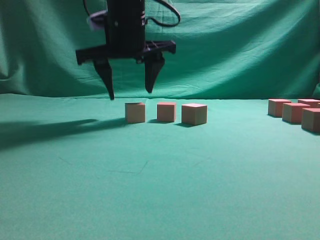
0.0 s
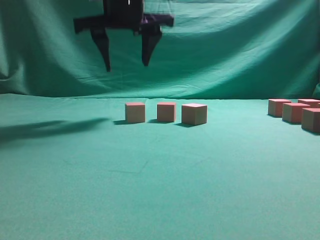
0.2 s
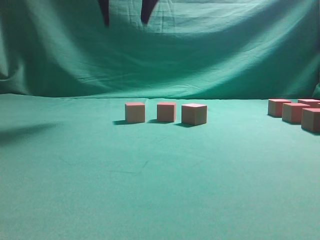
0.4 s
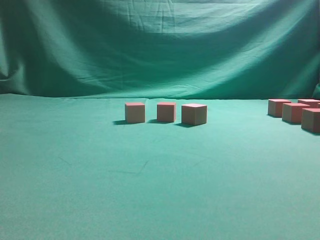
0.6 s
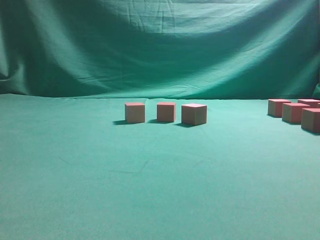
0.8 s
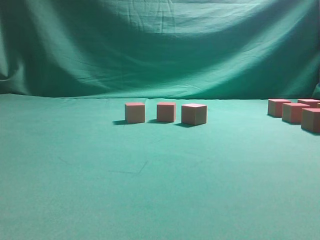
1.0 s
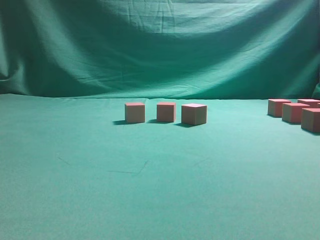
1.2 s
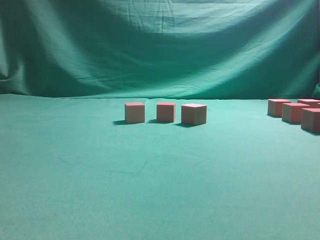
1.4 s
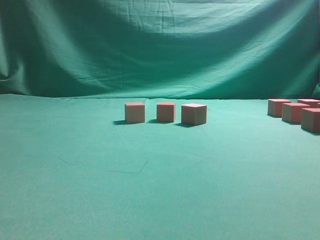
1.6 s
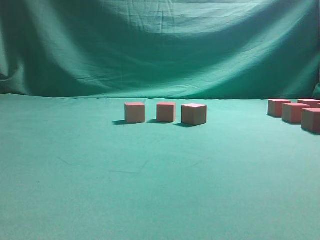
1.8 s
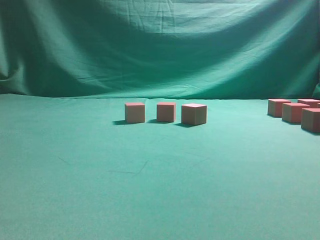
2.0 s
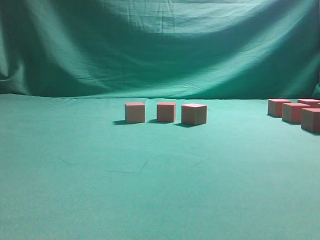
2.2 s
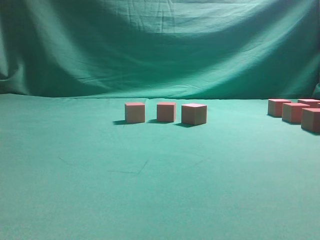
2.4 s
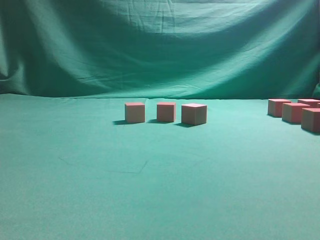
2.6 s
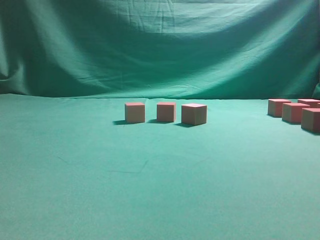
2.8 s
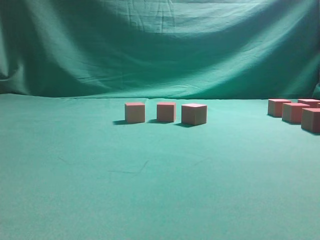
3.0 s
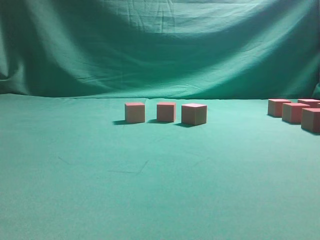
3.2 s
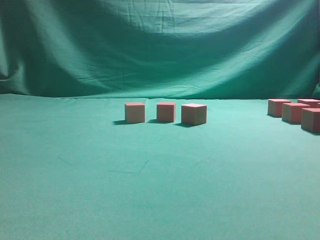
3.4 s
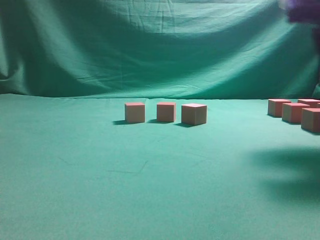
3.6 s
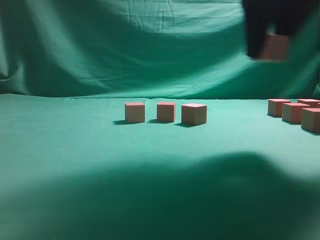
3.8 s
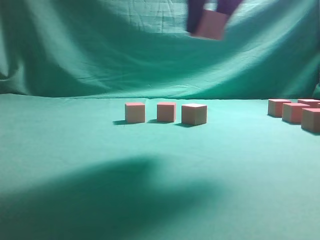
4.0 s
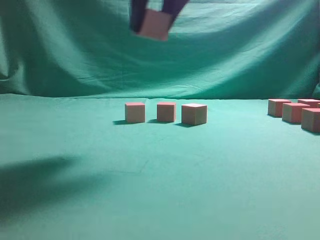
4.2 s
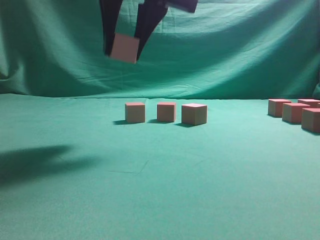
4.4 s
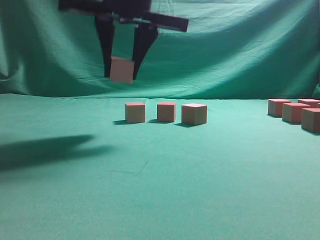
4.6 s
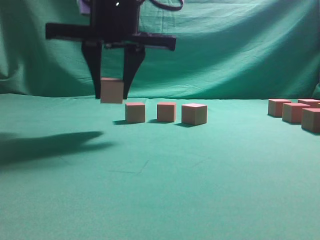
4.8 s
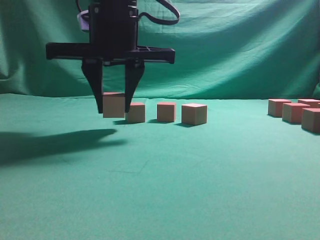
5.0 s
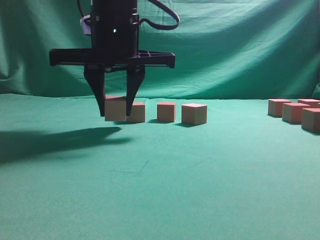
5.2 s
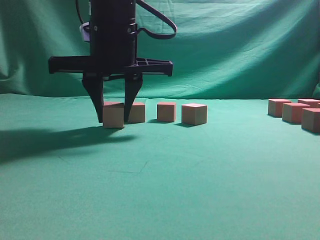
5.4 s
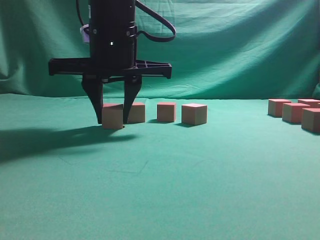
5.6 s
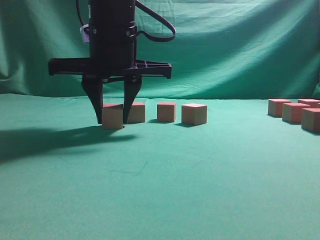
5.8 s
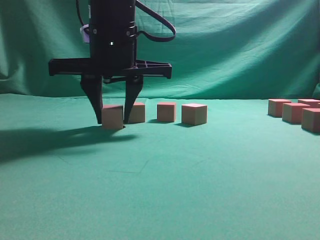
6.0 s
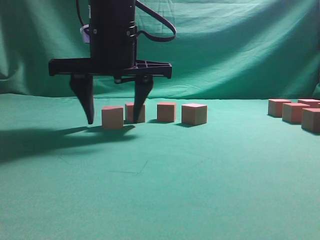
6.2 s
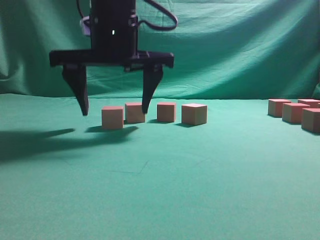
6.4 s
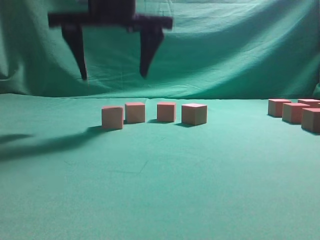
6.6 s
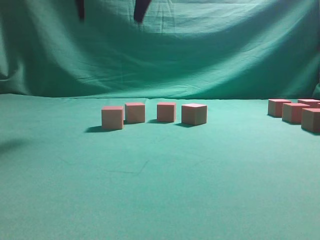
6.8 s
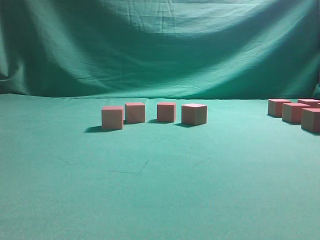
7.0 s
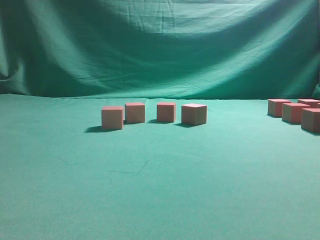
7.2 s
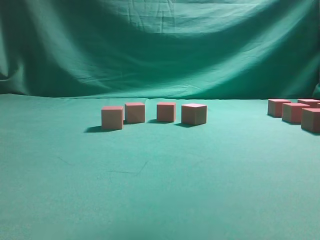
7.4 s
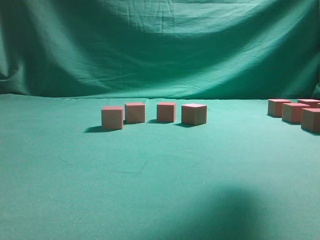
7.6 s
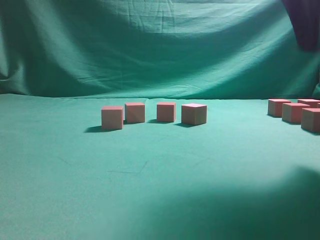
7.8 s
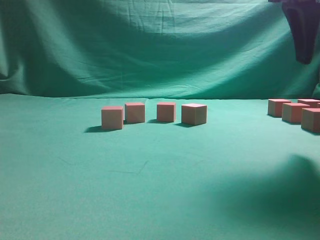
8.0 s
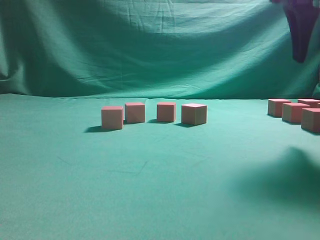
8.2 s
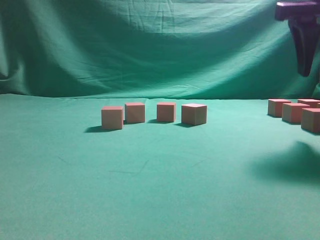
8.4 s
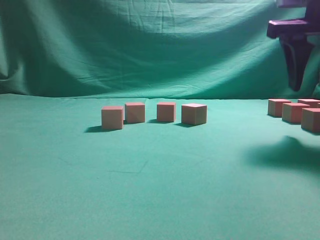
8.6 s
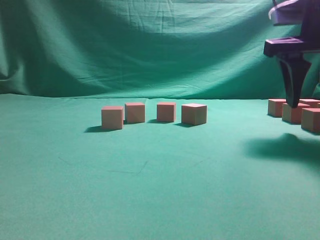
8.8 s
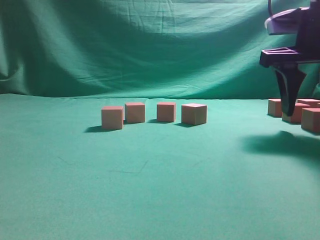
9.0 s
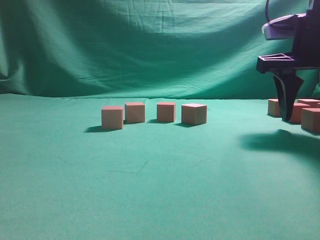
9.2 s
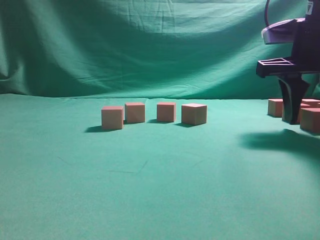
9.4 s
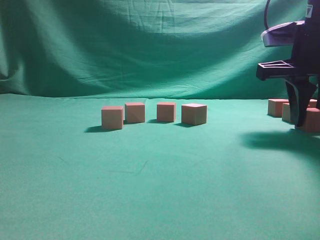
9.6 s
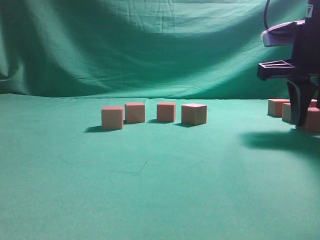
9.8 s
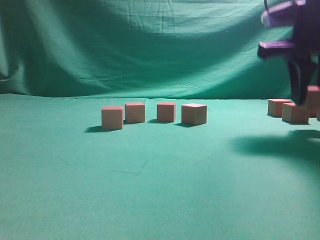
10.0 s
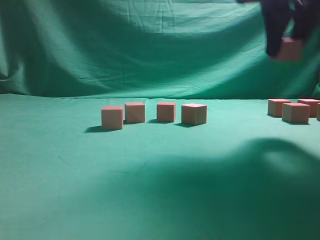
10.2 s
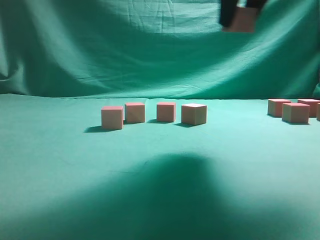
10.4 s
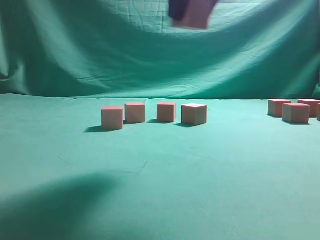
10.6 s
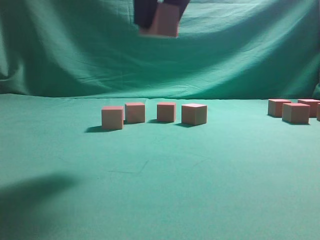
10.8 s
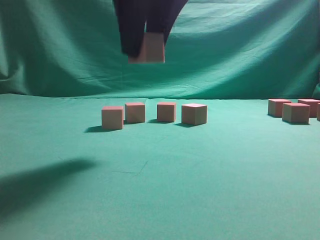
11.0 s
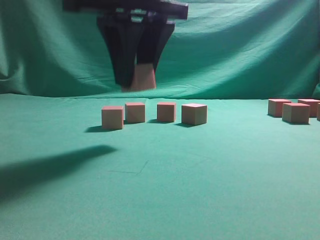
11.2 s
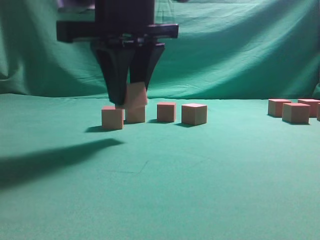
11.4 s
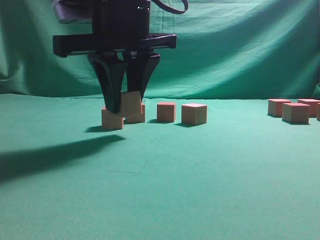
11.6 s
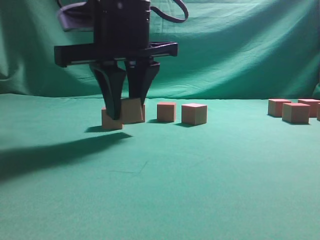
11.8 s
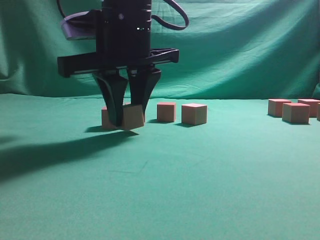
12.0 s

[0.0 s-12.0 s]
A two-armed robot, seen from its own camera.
Task of the whole recording: pick up the multiple cubes in two columns one by one and place them in another position on the table.
Step, 0.4 to 3.4 s: Pick up the block on the table.
Step, 3.6 to 6.6 s: Place the block at the correct position to assemble the letter S.
Step, 6.8 to 9.8 s: Pick up the block on the table.
0.0 to 1.6 s: The right gripper shifts some 40 cm to the right, backward and upward.
3.0 to 4.4 s: The right gripper moves to the left, roughly 30 cm.
4.4 to 6.0 s: The right gripper travels downward by about 10 cm.
6.0 to 7.6 s: The right gripper travels to the right and upward by roughly 25 cm, and opens up.
7.6 to 9.0 s: The right gripper heads downward, forward and to the right, covering some 15 cm.
9.0 to 10.4 s: The right gripper travels upward and to the left by approximately 15 cm, and closes its fingers.
10.4 to 12.0 s: The right gripper shifts some 20 cm to the left and downward.

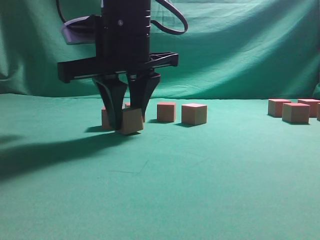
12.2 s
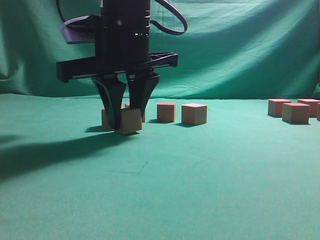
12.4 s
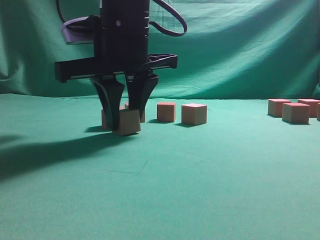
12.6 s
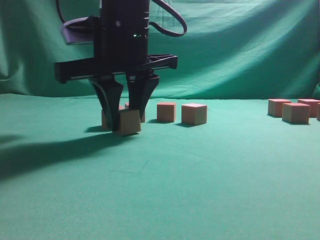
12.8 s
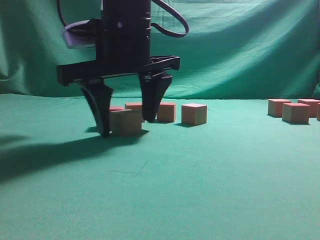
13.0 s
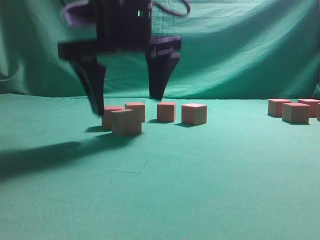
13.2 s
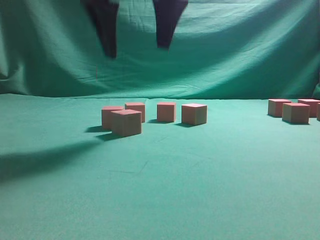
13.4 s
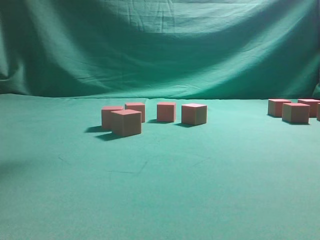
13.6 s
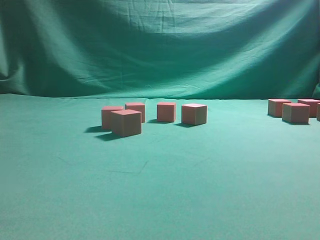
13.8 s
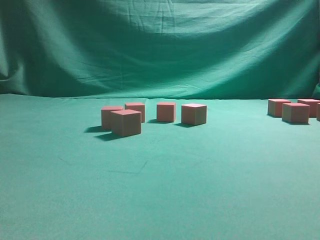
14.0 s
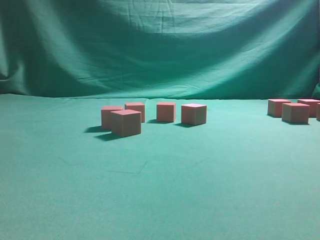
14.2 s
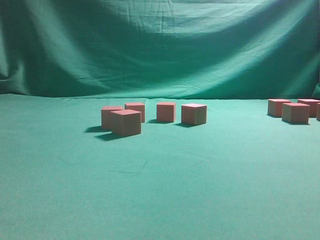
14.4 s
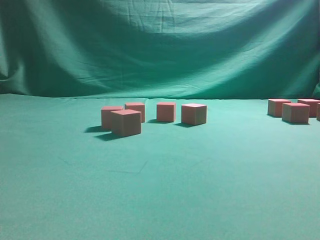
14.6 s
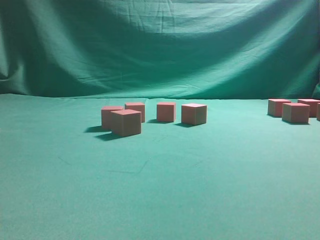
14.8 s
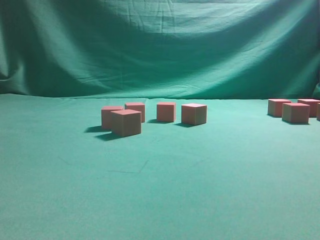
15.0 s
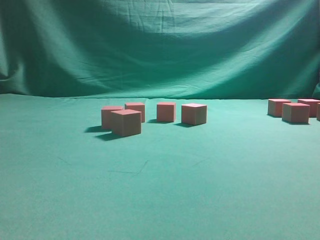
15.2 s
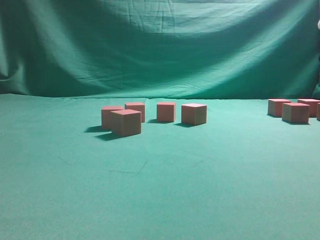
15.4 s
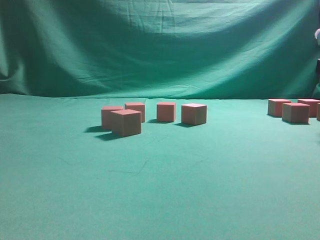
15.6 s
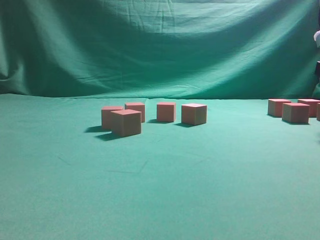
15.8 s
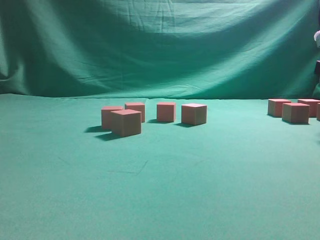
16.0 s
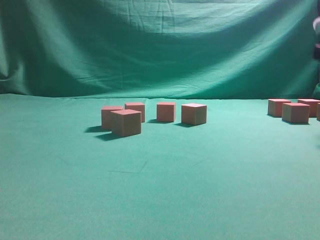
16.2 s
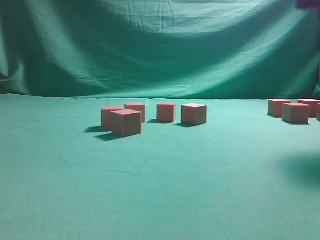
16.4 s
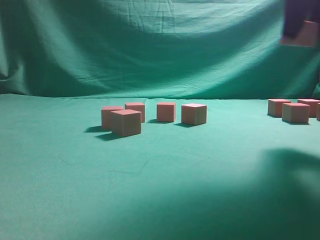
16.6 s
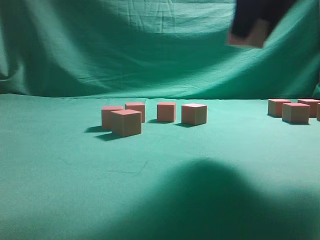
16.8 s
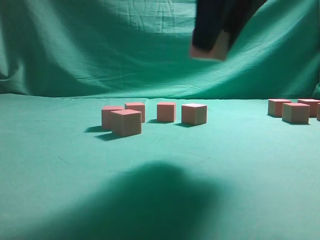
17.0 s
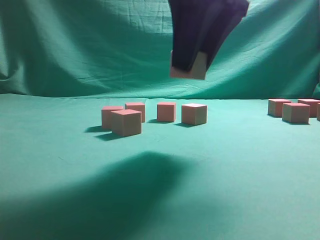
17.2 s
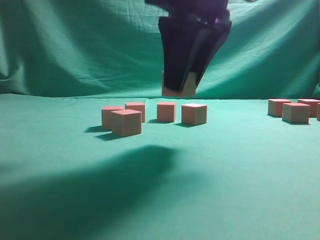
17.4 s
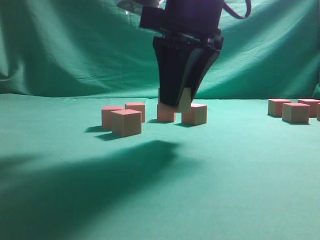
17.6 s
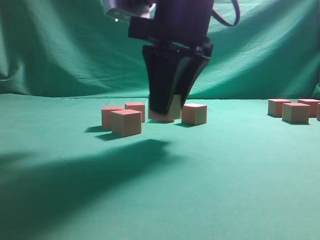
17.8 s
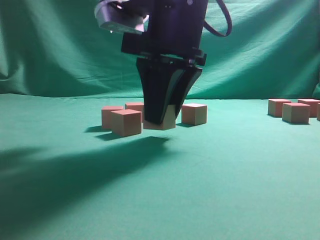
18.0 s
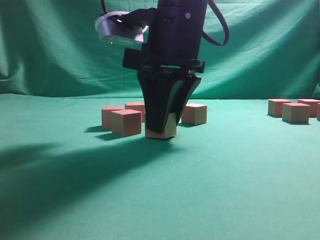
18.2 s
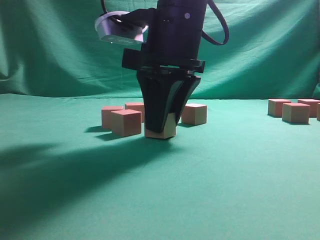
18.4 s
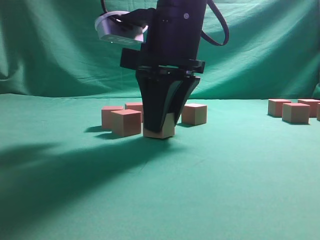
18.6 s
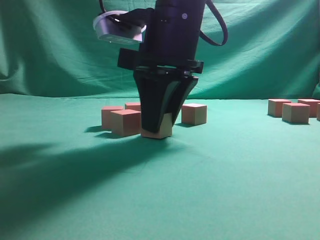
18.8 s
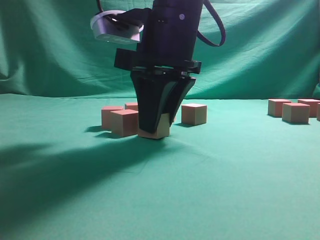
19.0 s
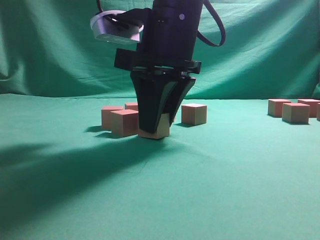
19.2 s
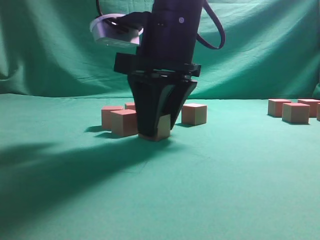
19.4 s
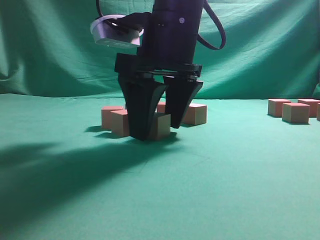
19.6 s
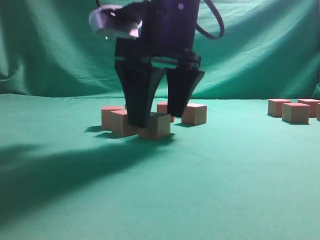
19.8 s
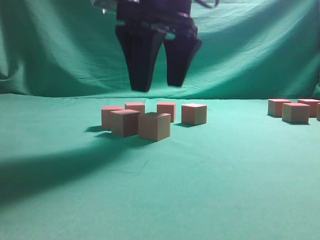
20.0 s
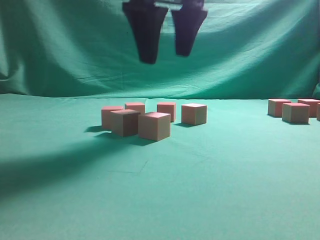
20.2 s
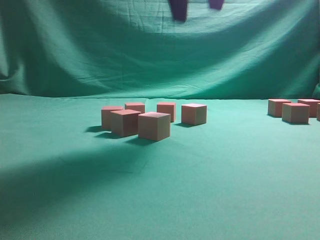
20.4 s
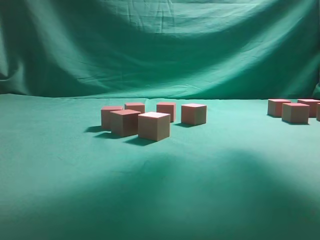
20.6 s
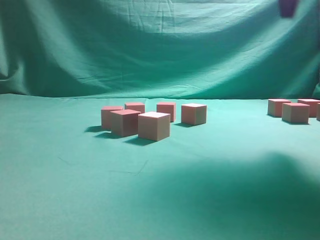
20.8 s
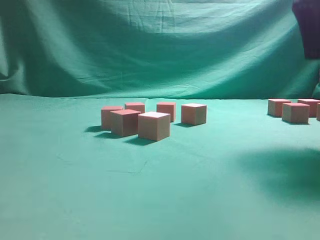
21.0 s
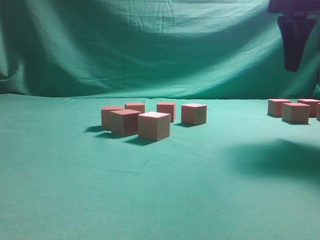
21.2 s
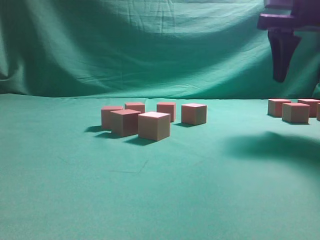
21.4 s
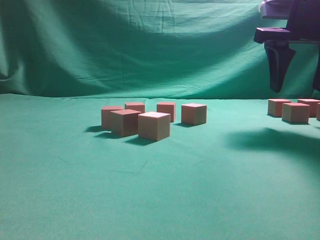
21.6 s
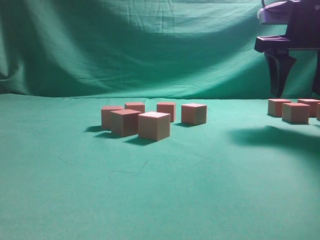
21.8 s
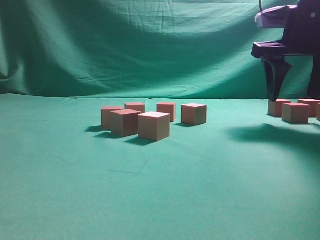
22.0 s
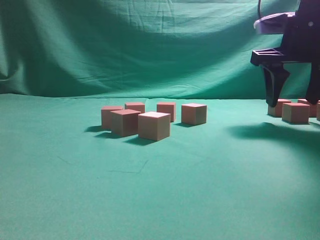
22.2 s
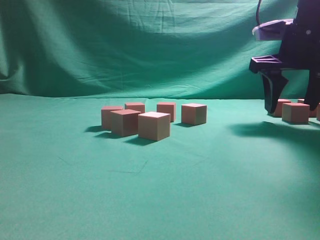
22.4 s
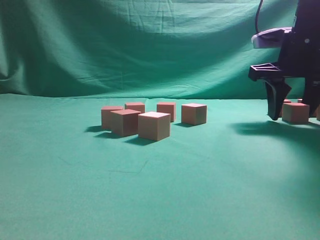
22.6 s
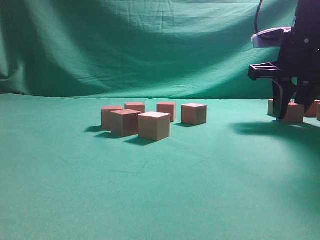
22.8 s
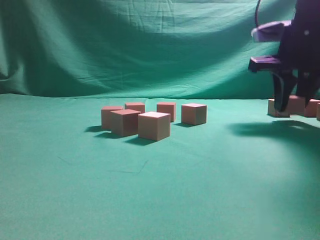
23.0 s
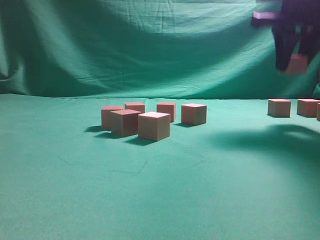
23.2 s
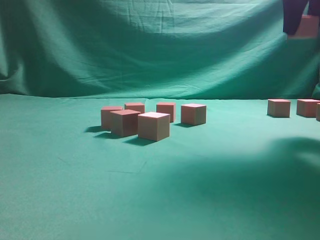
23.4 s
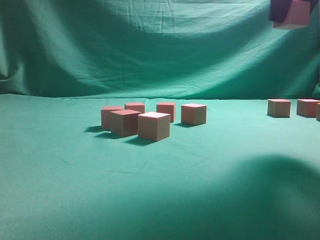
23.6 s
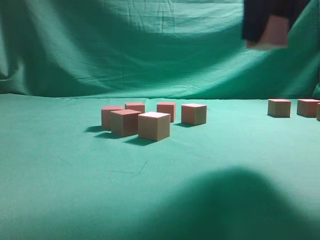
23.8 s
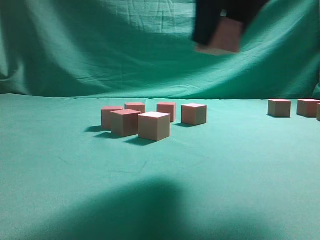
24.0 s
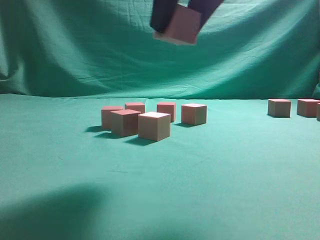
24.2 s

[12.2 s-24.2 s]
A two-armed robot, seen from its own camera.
Task of the whole recording: pick up the multiple cubes in two columns one by one and place them in another position on the table.
Step, 13.4 to 16.0 s: Pick up the block on the table.
Step, 16.2 to 20.2 s: Place the block at the correct position to assemble the letter S.
Step, 20.4 to 23.4 s: Pick up the block on the table.
12.2 to 13.8 s: The right gripper is displaced upward and to the right by some 25 cm, and opens its fingers.
15.2 to 16.6 s: The right gripper heads to the left and upward, covering approximately 10 cm, and closes its fingers.
16.6 to 18.2 s: The right gripper travels to the left and downward by roughly 20 cm.
18.2 to 19.8 s: The right gripper opens up.
19.8 to 21.2 s: The right gripper moves to the right, roughly 20 cm.
21.2 to 22.6 s: The right gripper heads downward and forward, covering about 10 cm.
22.6 to 24.2 s: The right gripper moves backward, to the left and upward, about 25 cm, and closes its fingers.
